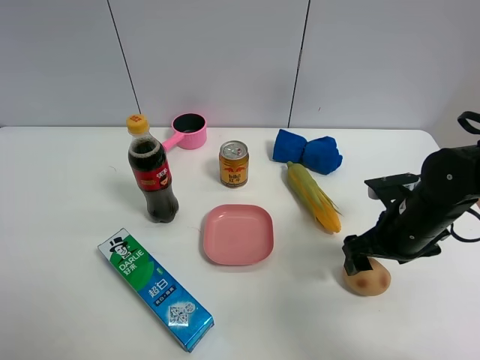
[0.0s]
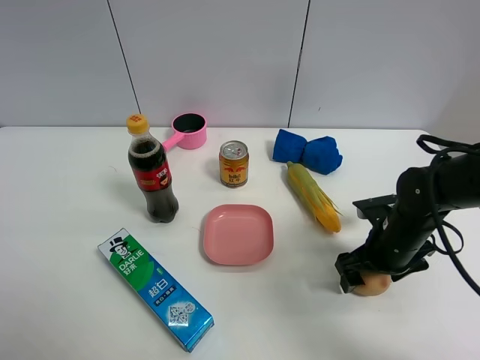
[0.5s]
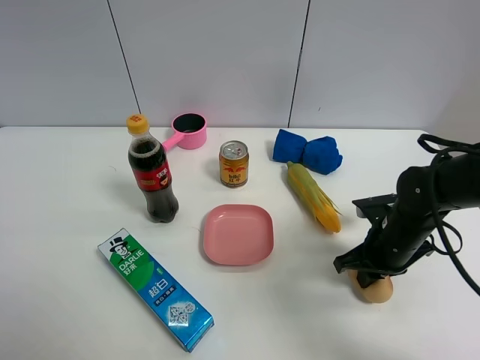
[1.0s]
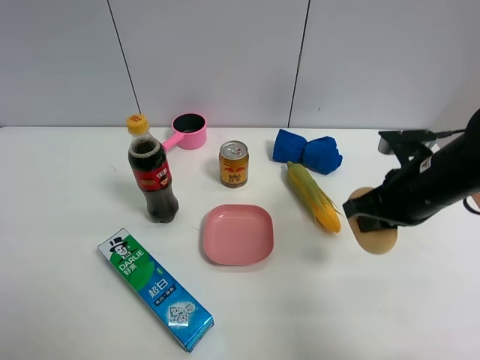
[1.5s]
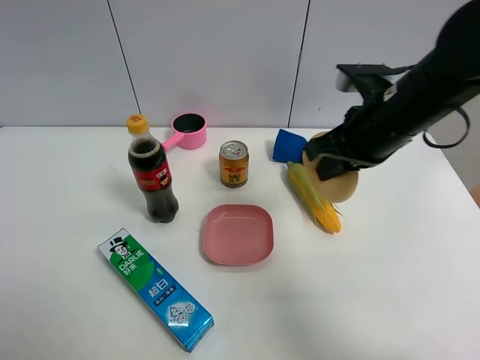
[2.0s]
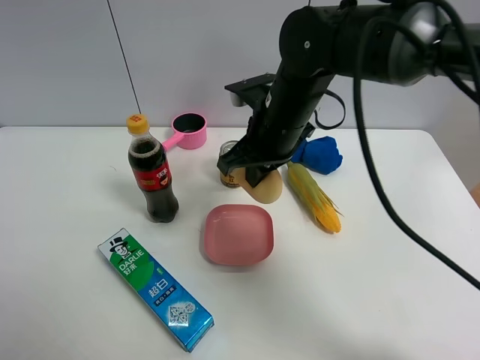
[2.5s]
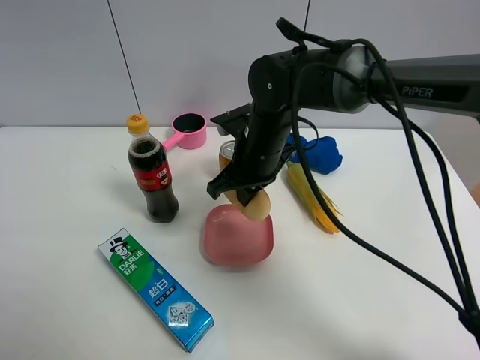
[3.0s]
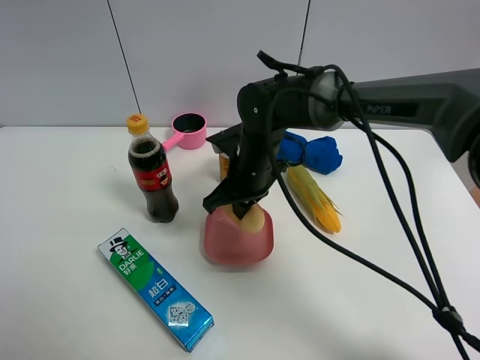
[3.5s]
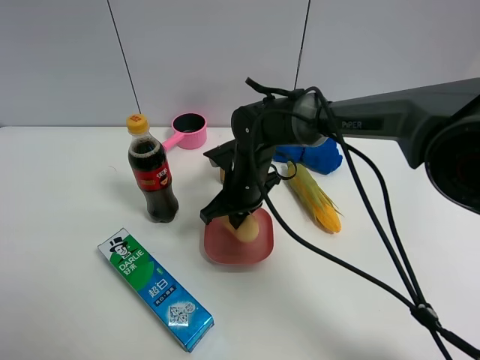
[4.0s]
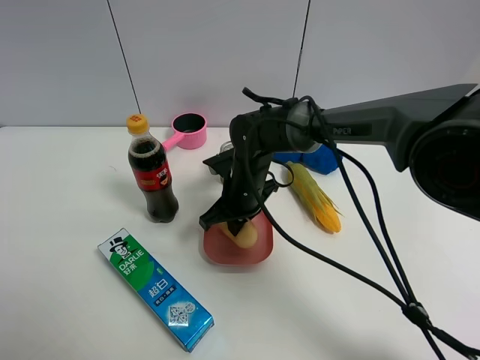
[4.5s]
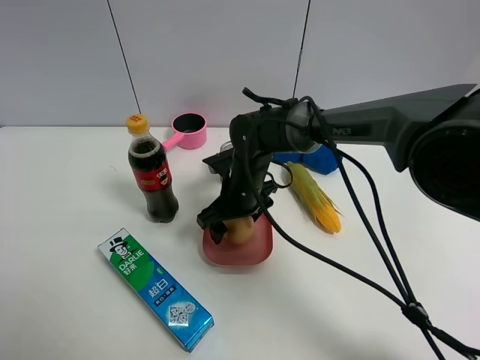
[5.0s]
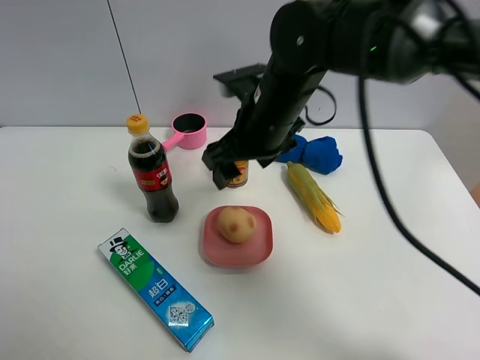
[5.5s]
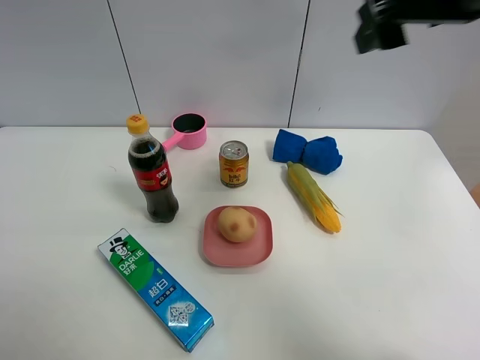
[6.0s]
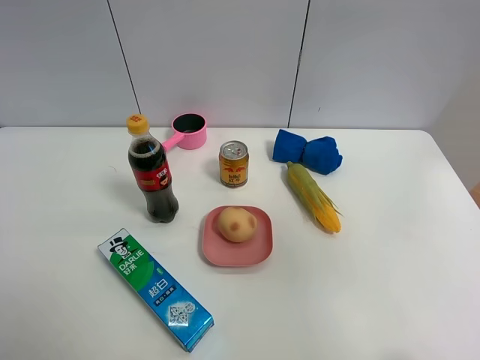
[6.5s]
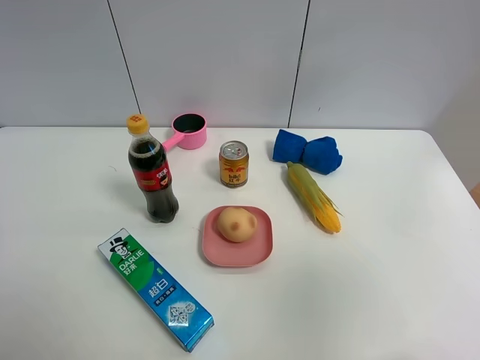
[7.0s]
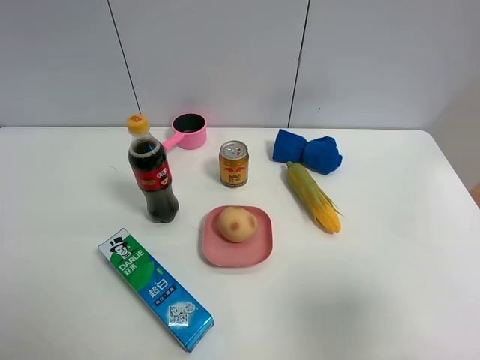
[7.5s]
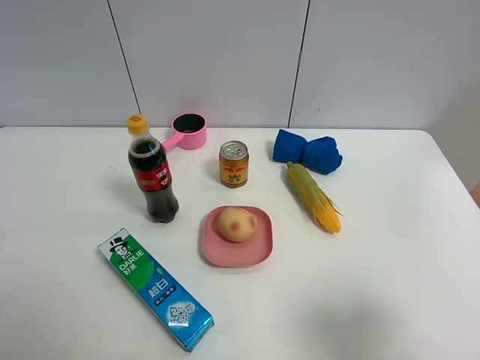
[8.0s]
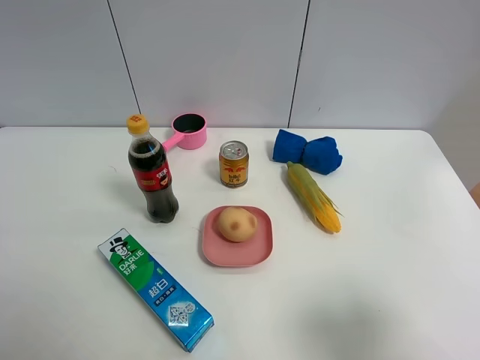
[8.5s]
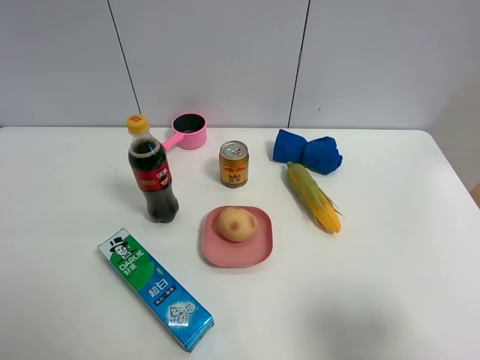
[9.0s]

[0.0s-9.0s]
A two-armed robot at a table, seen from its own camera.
Task of the whole recording: the gripper move the object.
Step, 1.5s to 5.0s: Place the egg yolk pastry into the pink plate with the right gripper.
0.0s to 2.0s: The right gripper shifts roughly 15 cm upward and to the left, and closes its fingers.
2.0s to 4.5s: The right gripper is displaced downward and to the left by approximately 20 cm.
4.5s to 7.0s: The right gripper travels backward, upward and to the right by about 60 cm, and opens.
7.0s to 9.0s: The right gripper is displaced downward by approximately 15 cm.

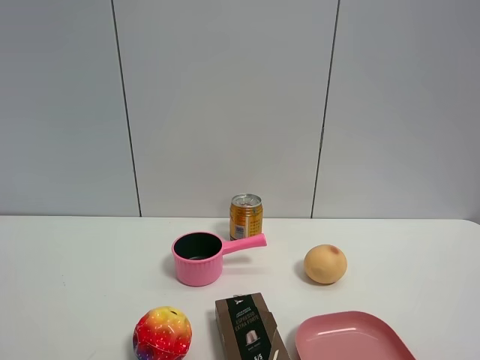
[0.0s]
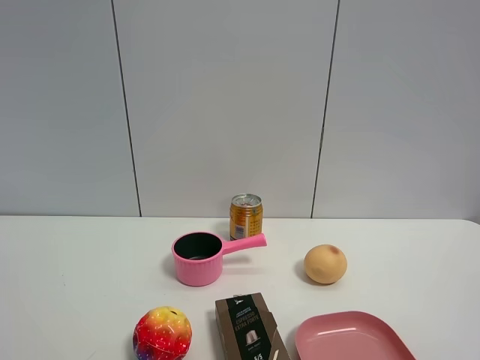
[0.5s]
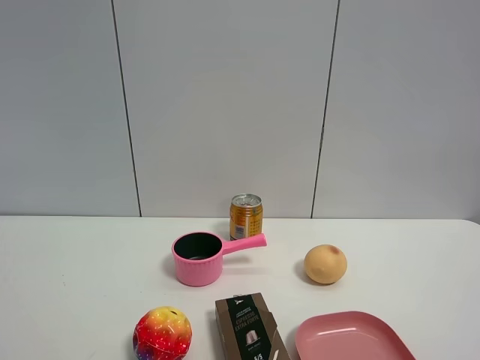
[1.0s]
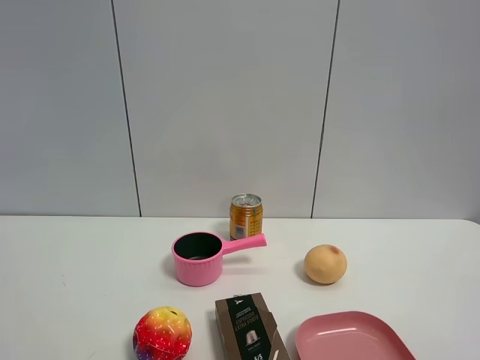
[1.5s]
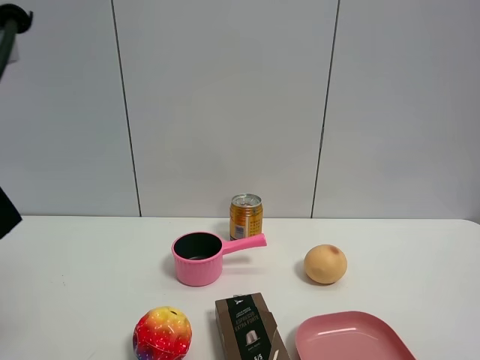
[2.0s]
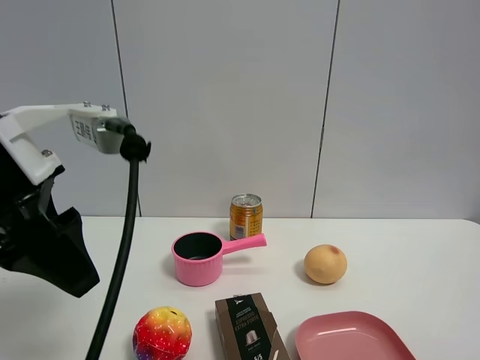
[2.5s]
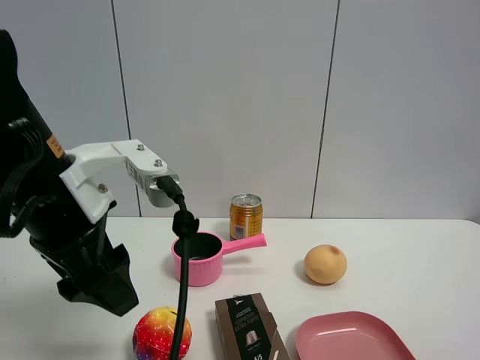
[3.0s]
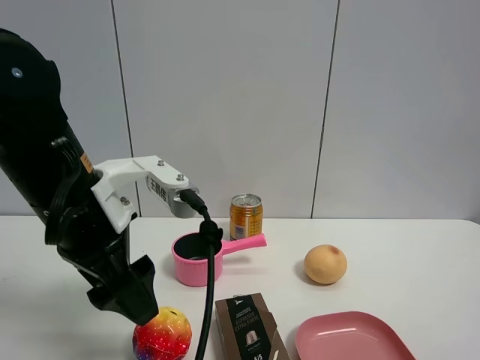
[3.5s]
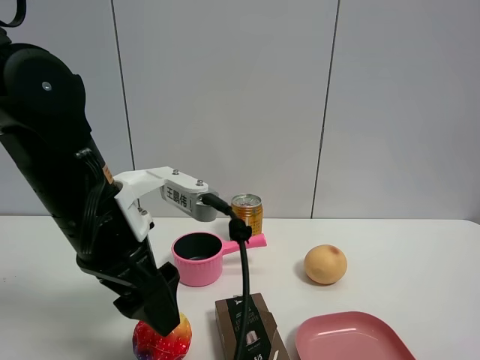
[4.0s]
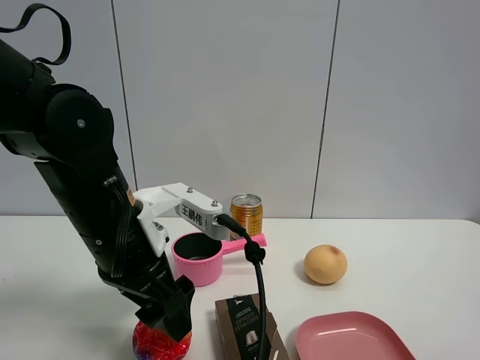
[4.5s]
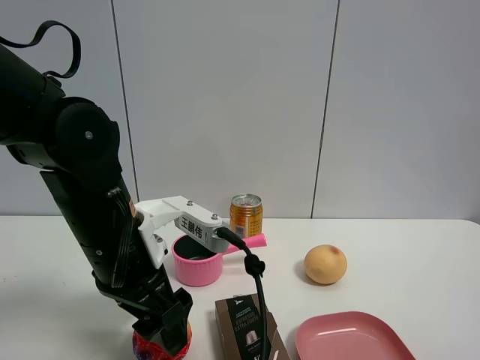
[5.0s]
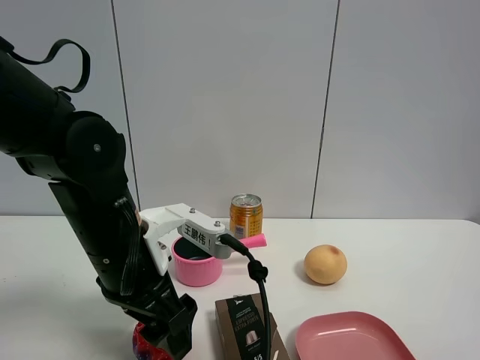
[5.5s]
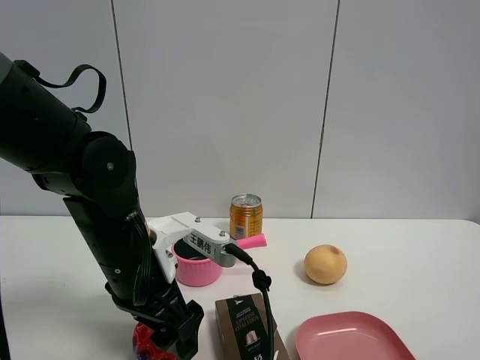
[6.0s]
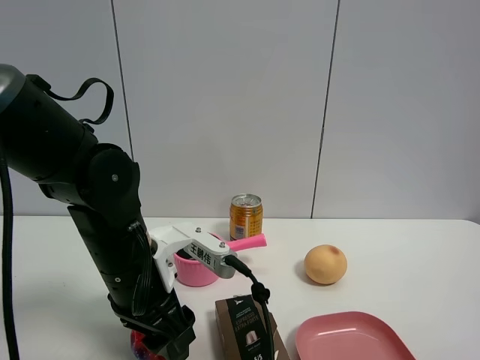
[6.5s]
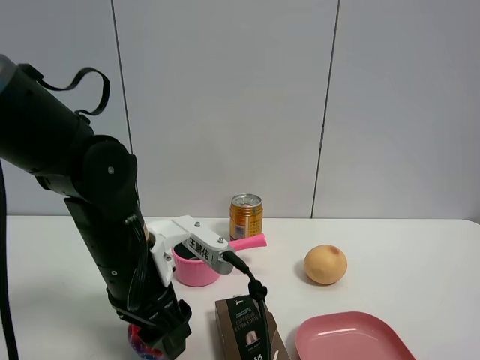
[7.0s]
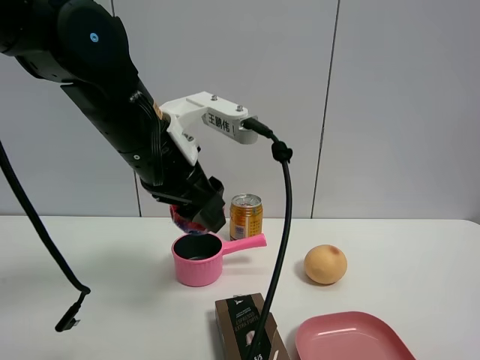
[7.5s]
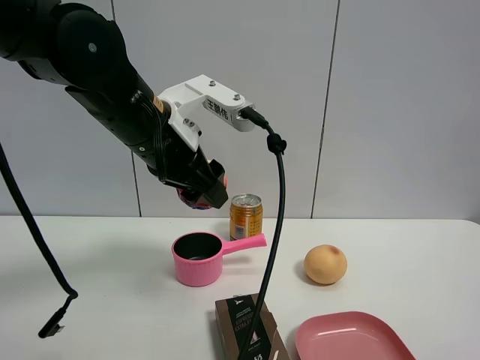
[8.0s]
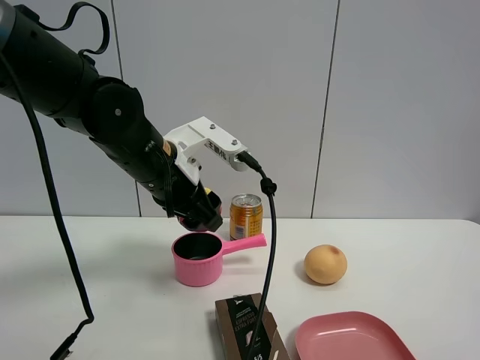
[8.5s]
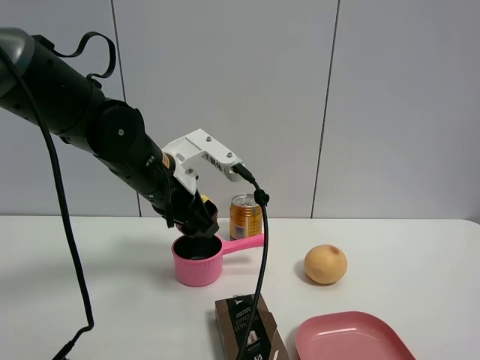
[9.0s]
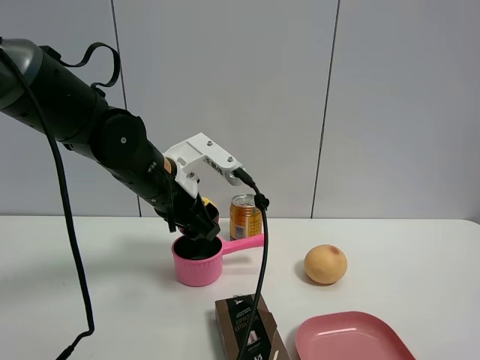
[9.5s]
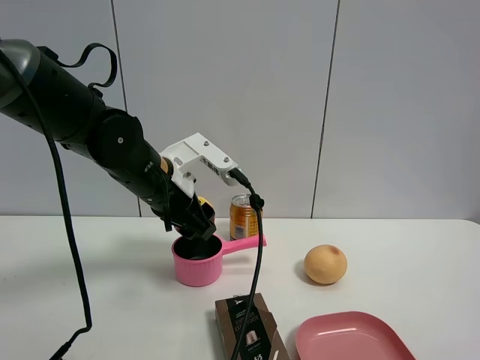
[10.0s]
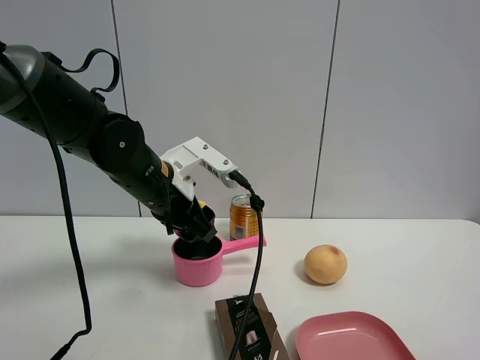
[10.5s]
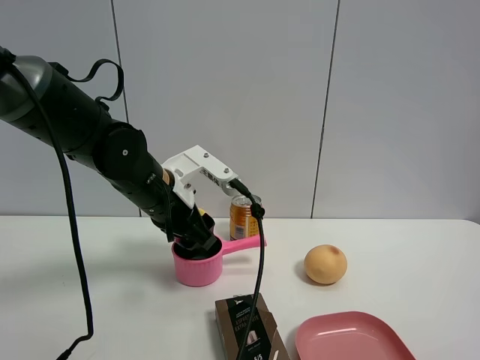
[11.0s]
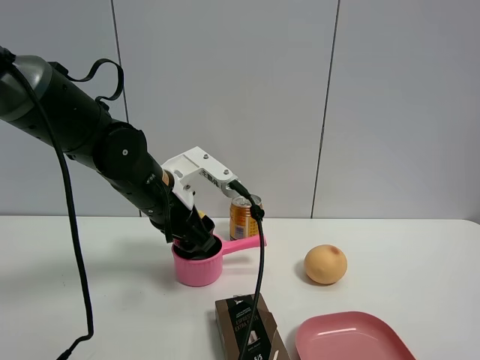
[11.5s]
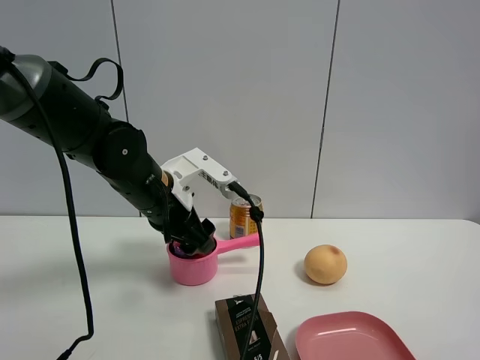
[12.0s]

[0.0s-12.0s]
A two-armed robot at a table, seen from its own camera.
Task of the whole recording: the gripper move the object.
Step, 0.0s to 6.5s: Grasp the colorful ball with the left gripper.
0.0s to 2.0s: The left gripper moves forward, approximately 20 cm, and closes.
2.0s to 4.0s: The left gripper goes roughly 20 cm to the right, downward and forward, and opens up.
4.0s to 6.0s: The left gripper heads downward, covering roughly 5 cm.
6.0s to 8.0s: The left gripper is displaced upward and forward by approximately 15 cm, and closes its fingers.
8.0s to 10.0s: The left gripper moves downward, about 10 cm.
10.0s to 12.0s: The left gripper opens up.

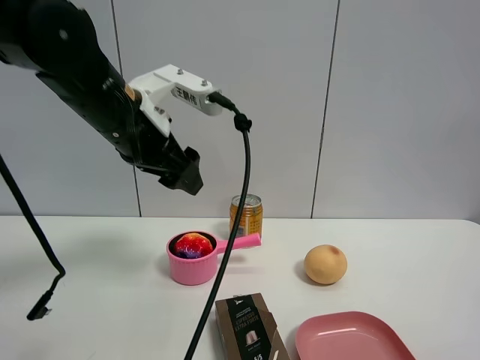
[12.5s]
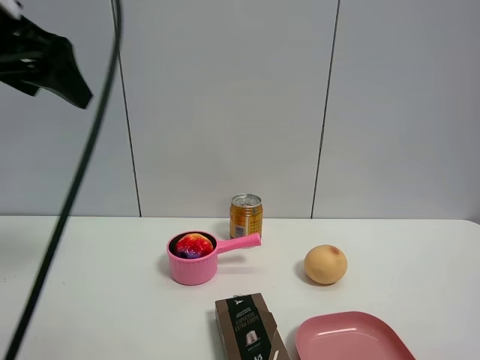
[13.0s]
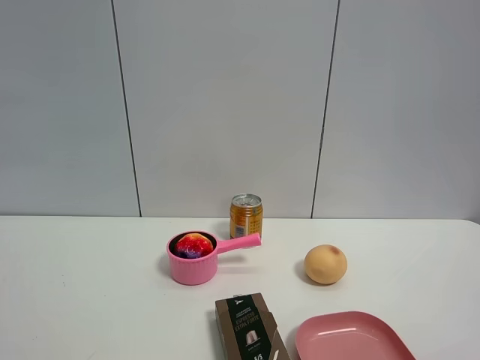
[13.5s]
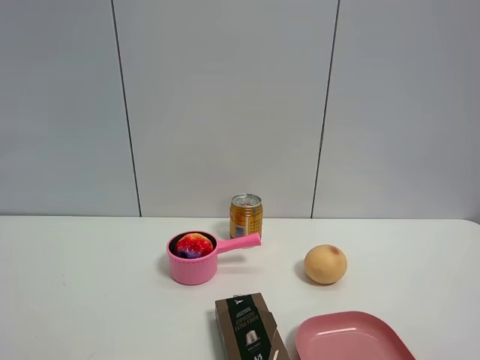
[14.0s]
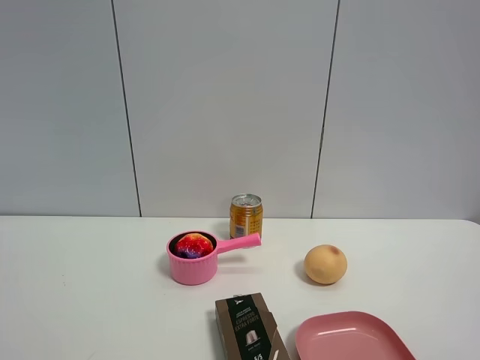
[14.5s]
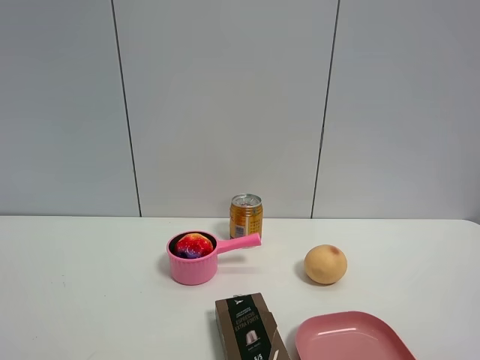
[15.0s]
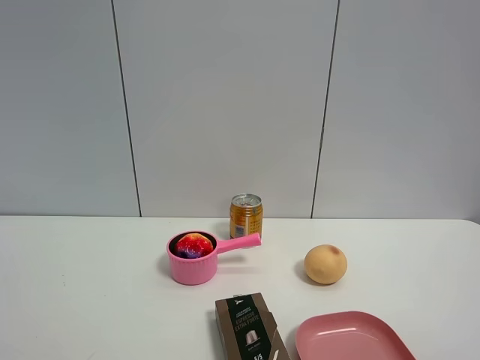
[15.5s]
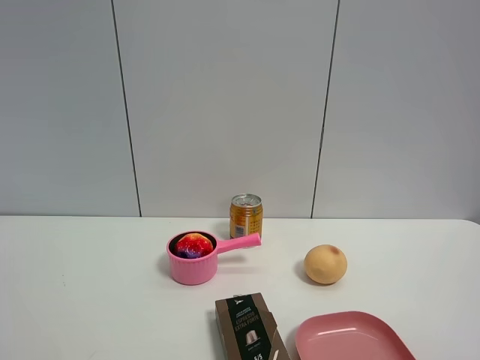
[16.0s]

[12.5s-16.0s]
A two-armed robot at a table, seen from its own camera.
Task of the whole recording: the gripper move the object.
12.5s to 14.5s: The left gripper travels backward and to the left by about 35 cm.

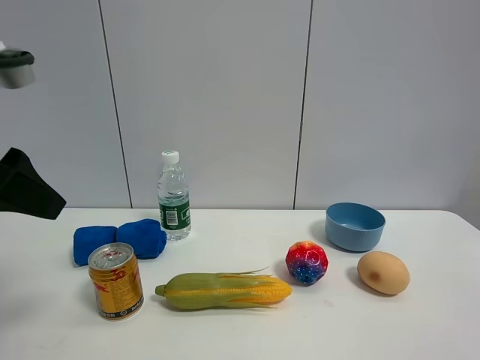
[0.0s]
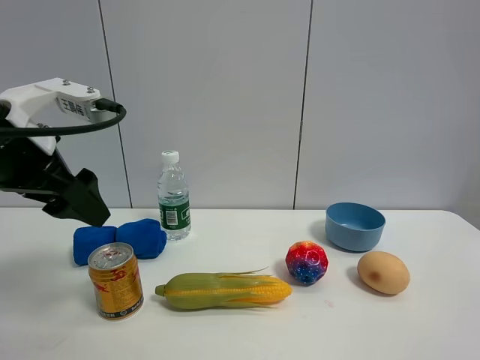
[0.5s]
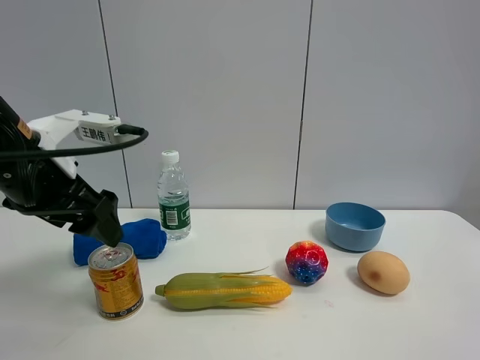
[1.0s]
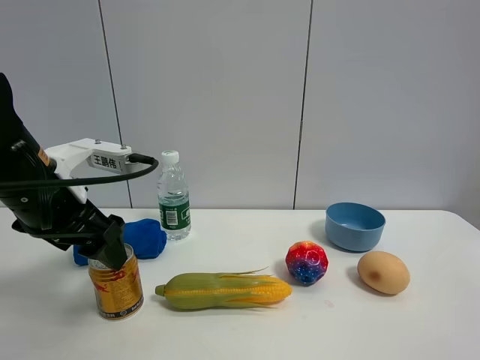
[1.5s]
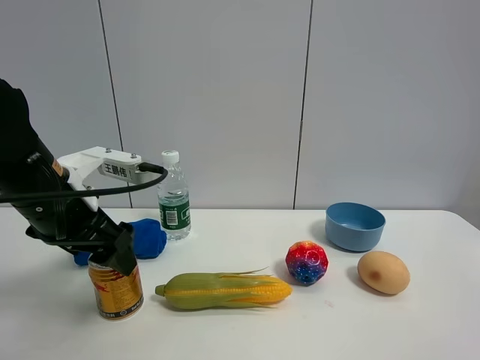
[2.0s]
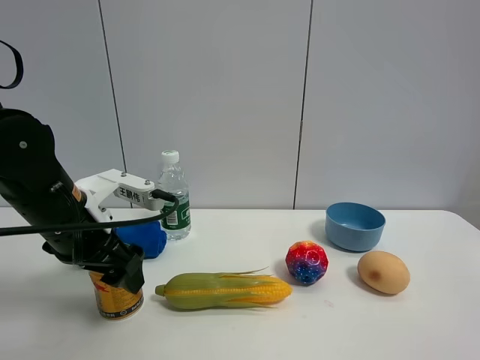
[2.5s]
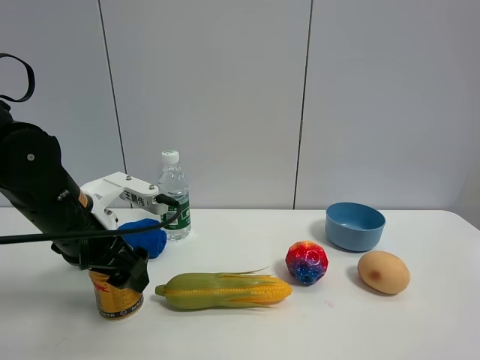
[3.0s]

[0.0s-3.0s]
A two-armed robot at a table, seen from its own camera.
Task of the whole recording: the gripper move the object.
0.0s to 1.5s: The left gripper travels downward, forward and to the right by some 10 cm.
1.5s to 3.0s: The left gripper shifts some 5 cm downward.
